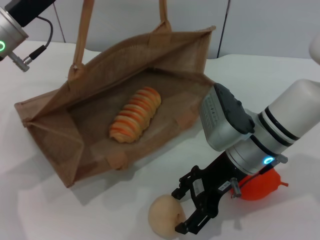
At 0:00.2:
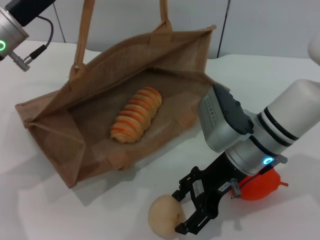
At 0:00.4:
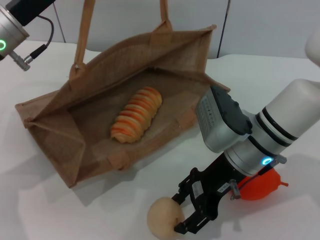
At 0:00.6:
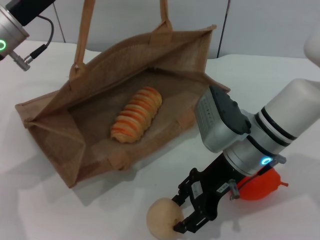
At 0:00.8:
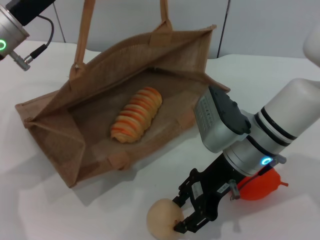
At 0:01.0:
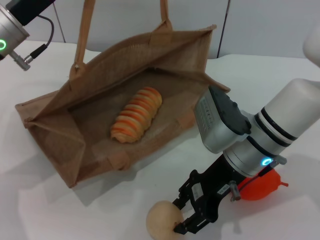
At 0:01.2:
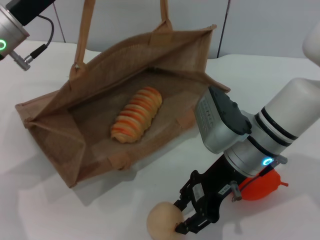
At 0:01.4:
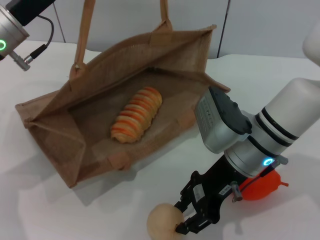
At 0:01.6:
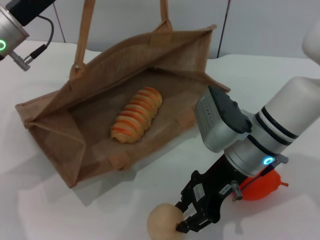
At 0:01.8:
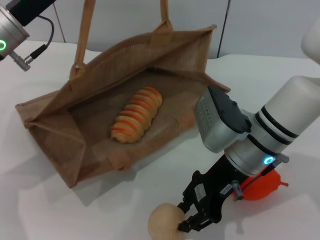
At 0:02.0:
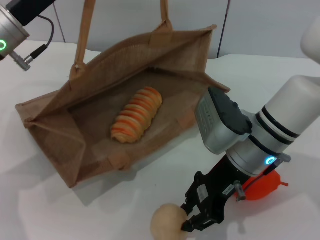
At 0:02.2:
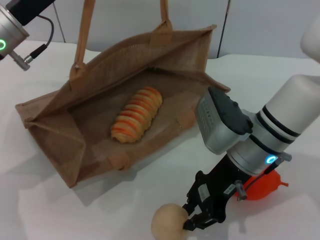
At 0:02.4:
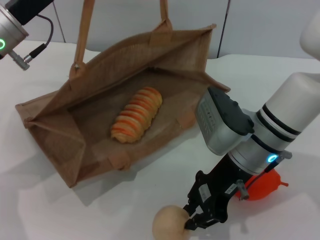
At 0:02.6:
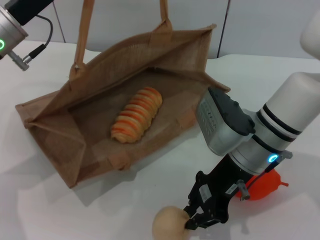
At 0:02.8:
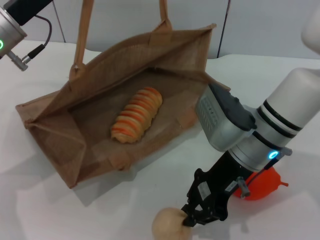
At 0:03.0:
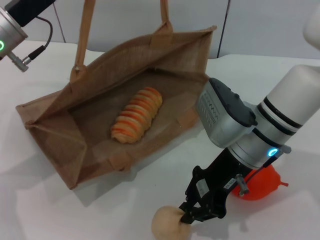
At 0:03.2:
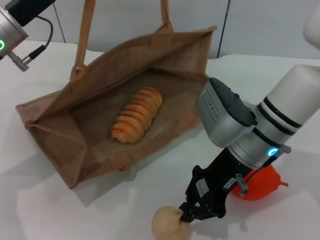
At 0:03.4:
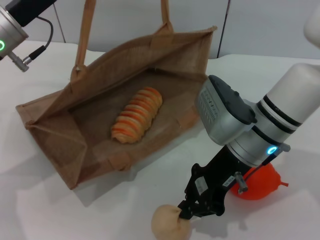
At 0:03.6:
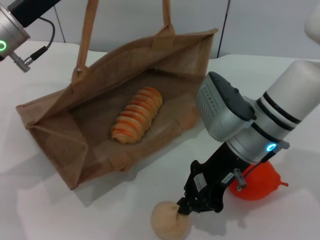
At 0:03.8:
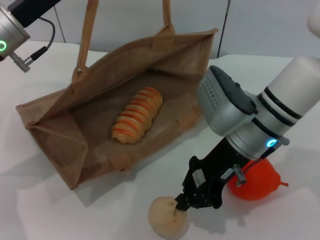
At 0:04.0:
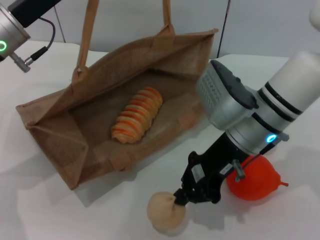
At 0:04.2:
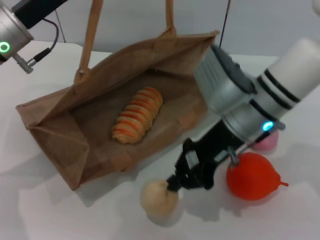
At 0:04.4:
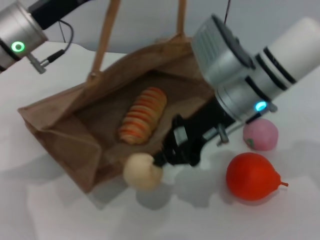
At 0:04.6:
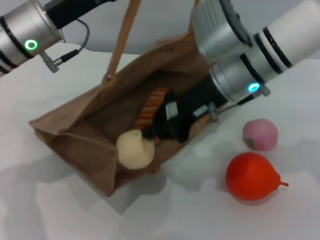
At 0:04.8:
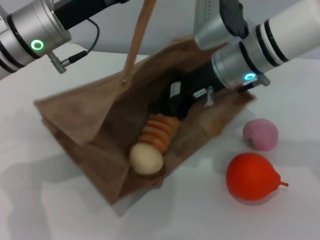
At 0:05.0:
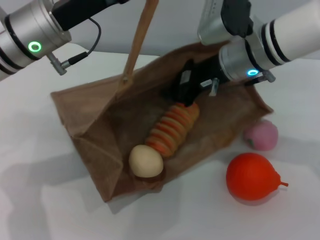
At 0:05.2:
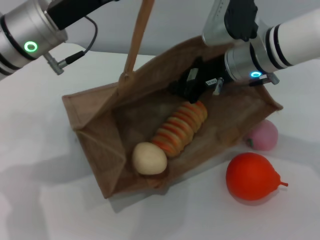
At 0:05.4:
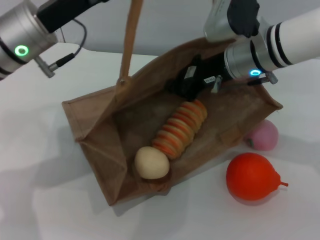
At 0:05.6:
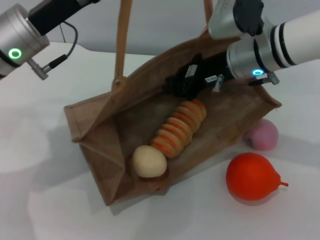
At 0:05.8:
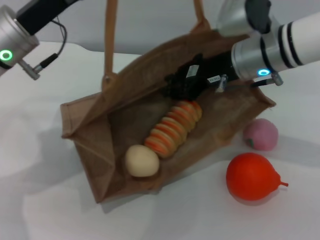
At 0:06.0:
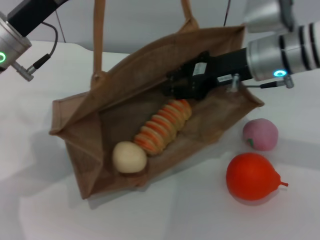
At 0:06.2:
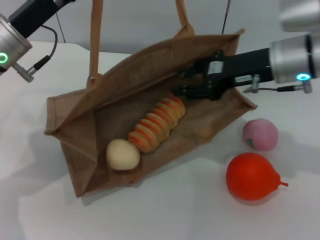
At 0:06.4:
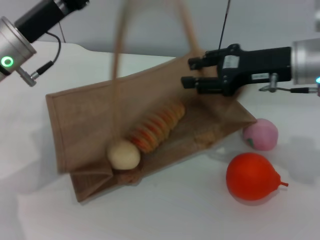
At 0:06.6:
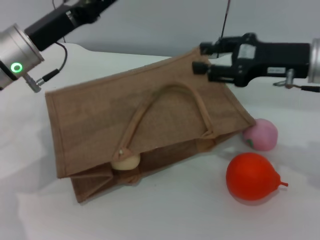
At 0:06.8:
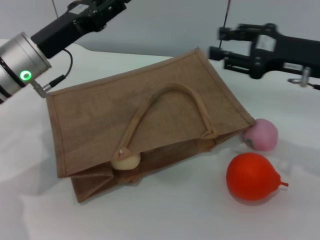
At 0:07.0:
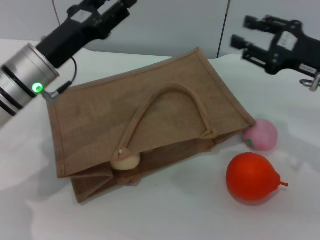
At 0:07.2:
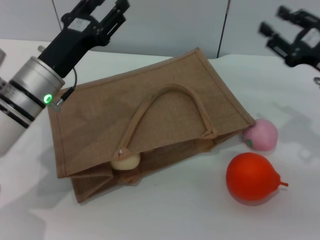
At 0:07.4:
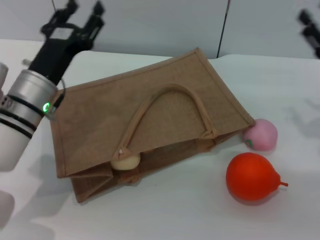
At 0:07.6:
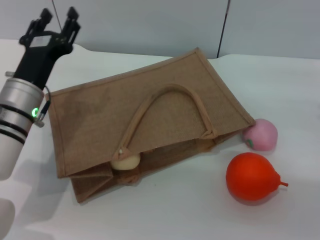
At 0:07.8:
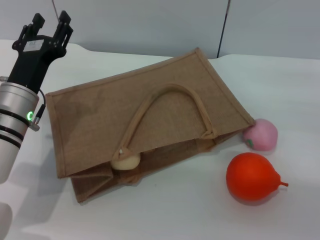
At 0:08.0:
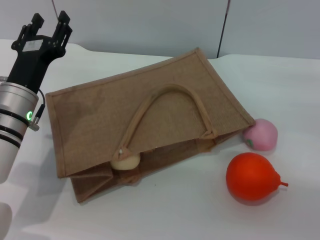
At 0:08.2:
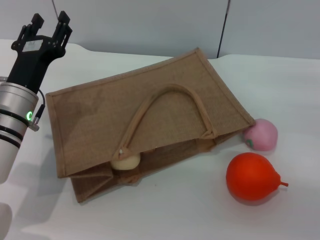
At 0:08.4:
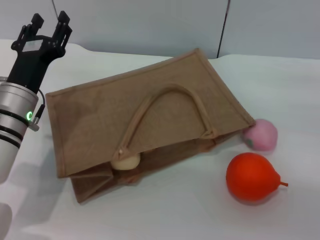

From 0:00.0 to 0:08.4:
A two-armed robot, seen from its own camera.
Task of the whole recording: pick up the bread and egg yolk pastry from the table and place it in the brown handbag.
Step, from 0:00.0 to 0:04.0: Pick up the egg yolk pastry with the right gripper.
Step, from 0:04.2 to 0:05.4: Place the egg yolk pastry into the woven bag with the right gripper.
Step, from 0:05.6 to 0:06.6: Lower the woven bag with the left gripper to close it.
From 0:00.0 to 0:01.4: The right gripper closes.
From 0:01.4 to 0:02.8: Both grippers stay put.
From 0:04.2 to 0:05.6: The right gripper shifts roughly 5 cm forward.
From 0:05.6 to 0:07.0: The left gripper heads downward, covering roughly 5 cm, and opens up. The right gripper travels to the right and backward by approximately 15 cm, and opens up.
From 0:07.0 to 0:08.4: The right gripper shifts approximately 10 cm to the right and downward. The left gripper goes roughly 5 cm downward.
